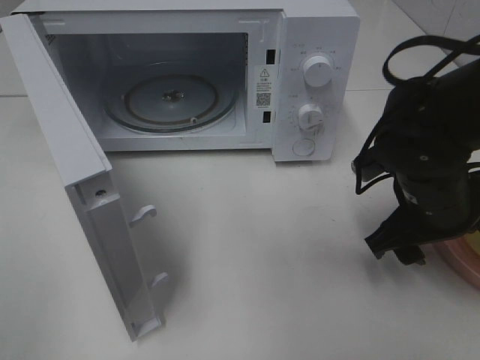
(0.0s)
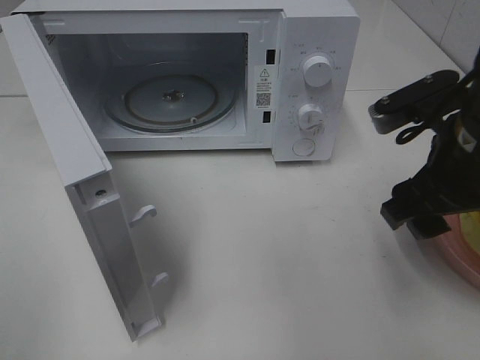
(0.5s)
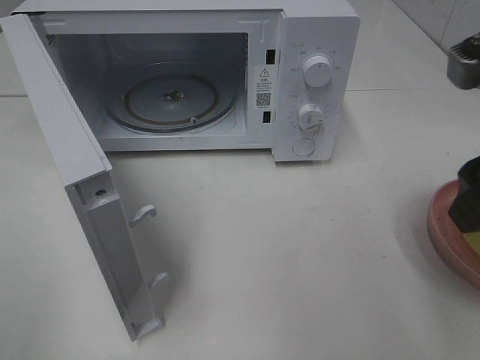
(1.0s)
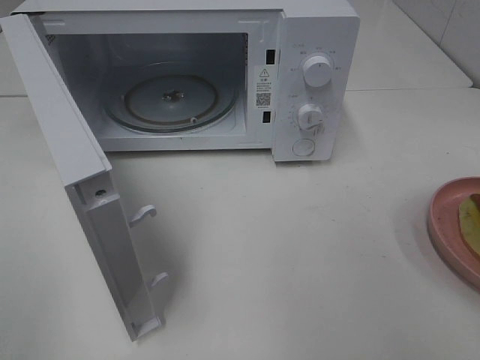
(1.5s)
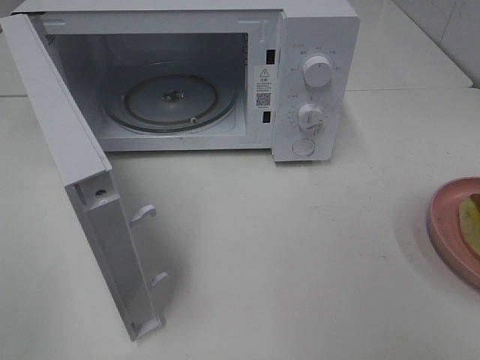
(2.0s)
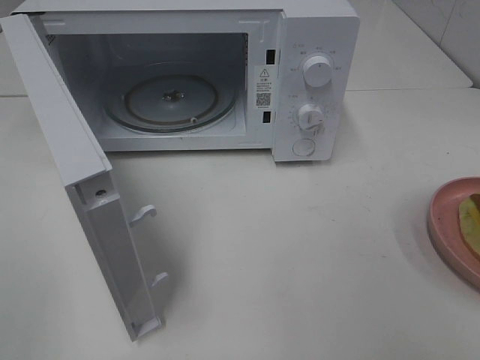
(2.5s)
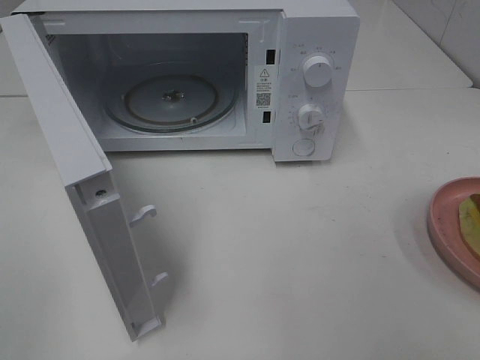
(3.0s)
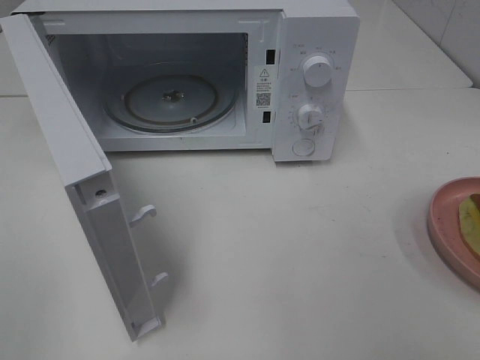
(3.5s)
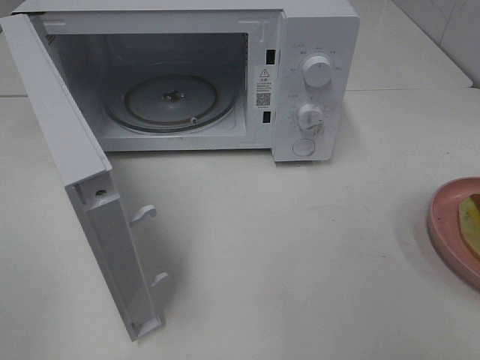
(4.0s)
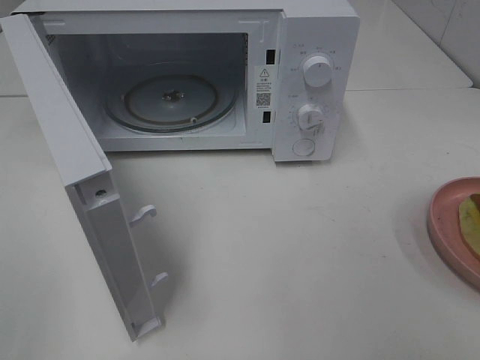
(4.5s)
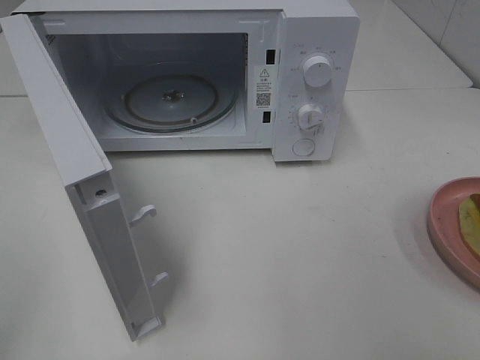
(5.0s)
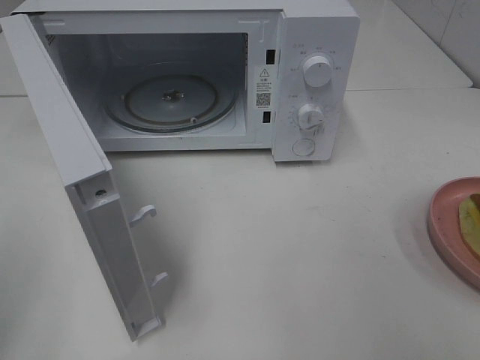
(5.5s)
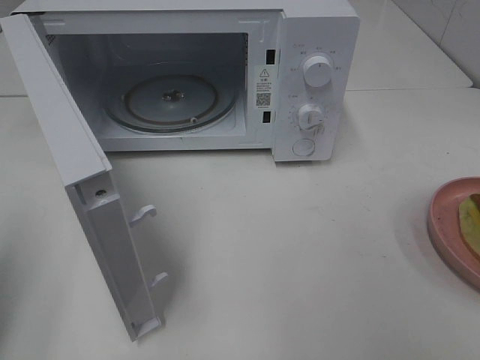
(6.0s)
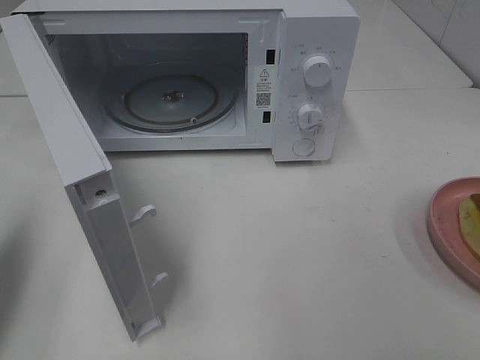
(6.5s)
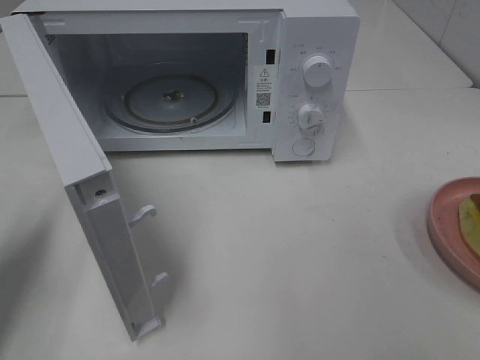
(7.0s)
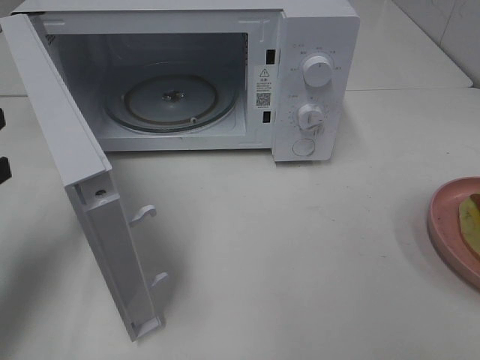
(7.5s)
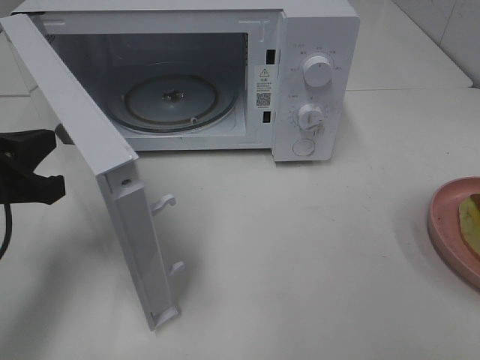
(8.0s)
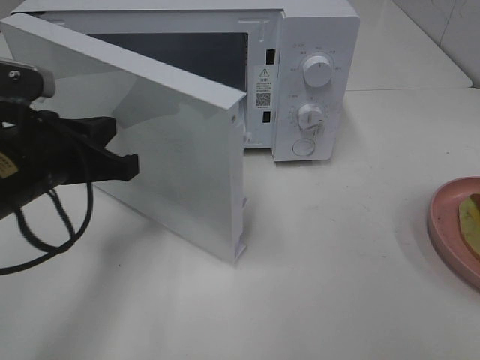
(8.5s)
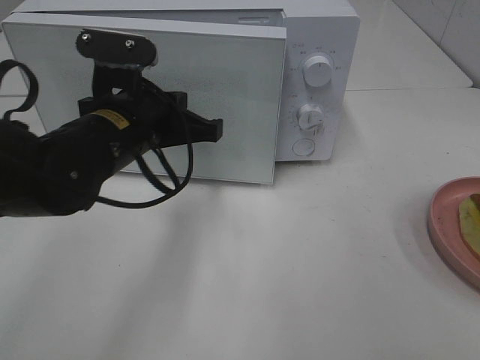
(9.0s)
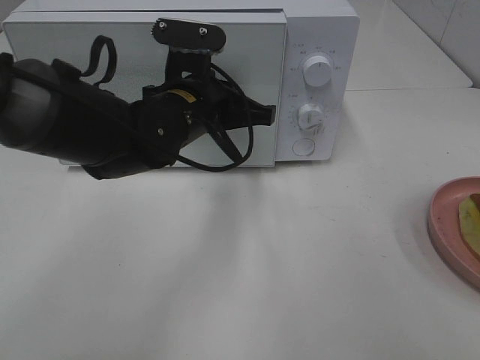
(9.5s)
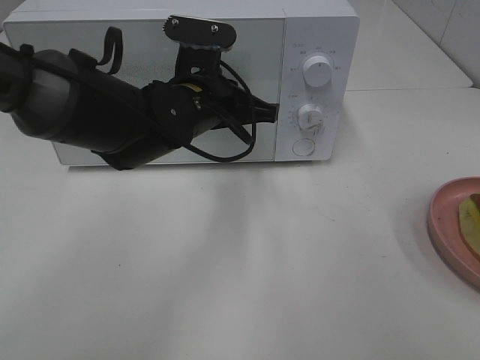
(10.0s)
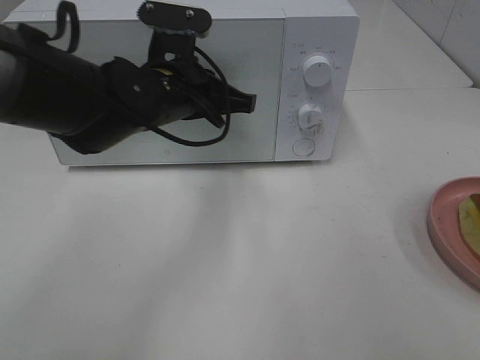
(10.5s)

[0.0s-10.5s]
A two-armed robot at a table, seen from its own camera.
Task of the whole recording: Heat Sandwich.
0.0s to 2.0s: The right gripper goes some 30 cm backward, upward and to the right.
4.0s to 6.5s: The left gripper travels forward by roughly 20 cm, and closes its fingers.
6.5s to 8.5s: The left gripper heads to the right, forward and downward, covering approximately 15 cm.
8.5s to 10.5s: The left gripper heads to the right and forward, covering some 15 cm.

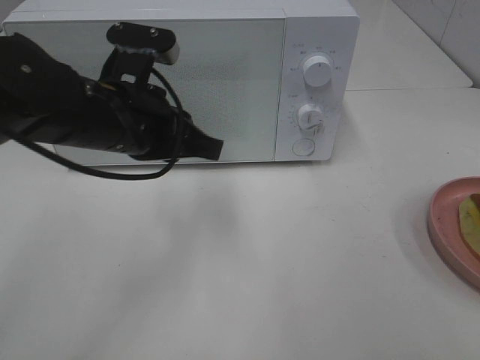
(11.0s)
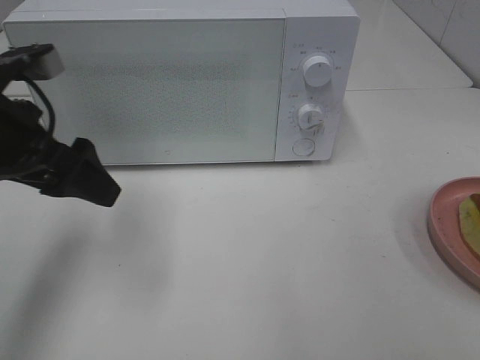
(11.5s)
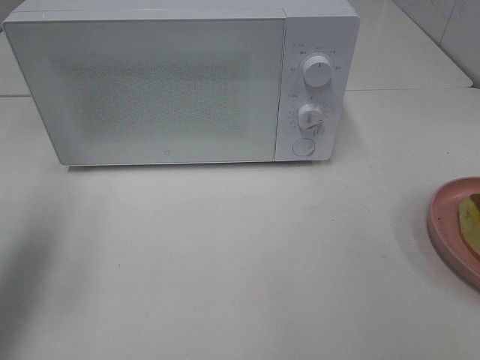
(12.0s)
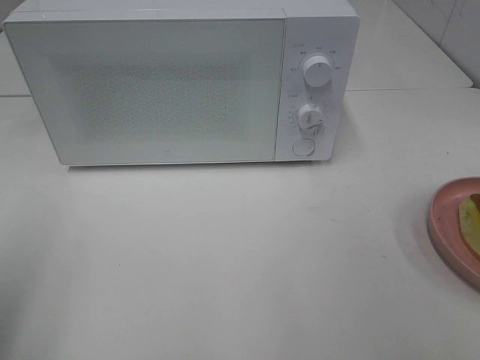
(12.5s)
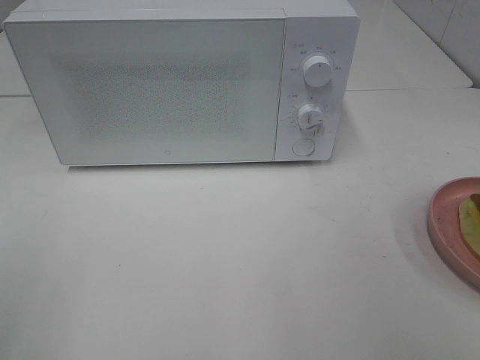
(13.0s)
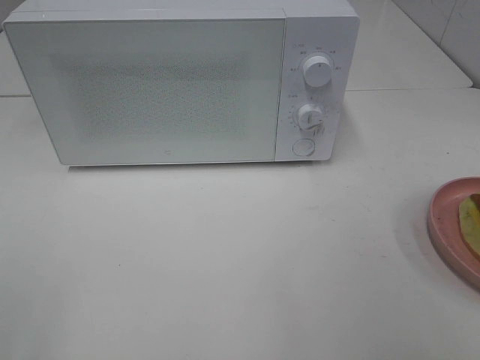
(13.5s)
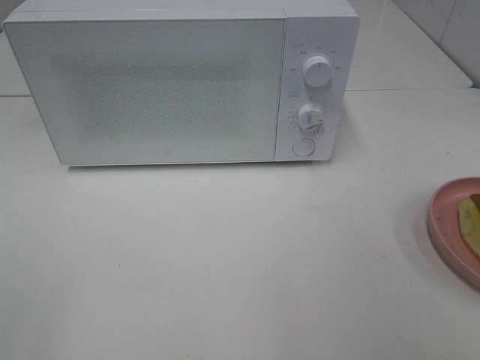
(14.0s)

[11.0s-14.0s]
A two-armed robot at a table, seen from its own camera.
Task of the whole recording: Heat Sandwich.
11.0s to 12.5s: The left gripper moves to the left and backward, approximately 25 cm, and opens.

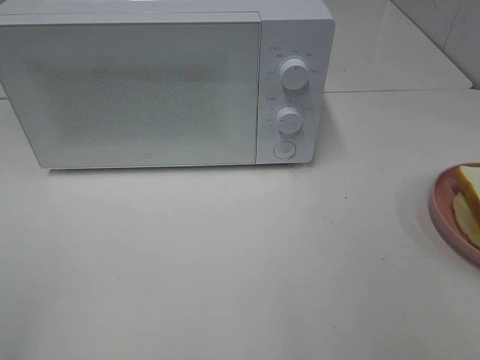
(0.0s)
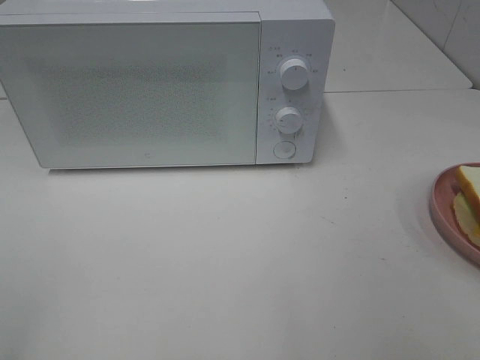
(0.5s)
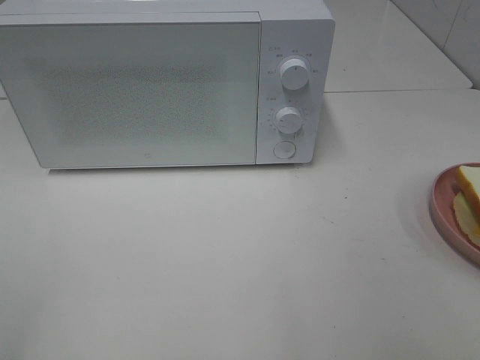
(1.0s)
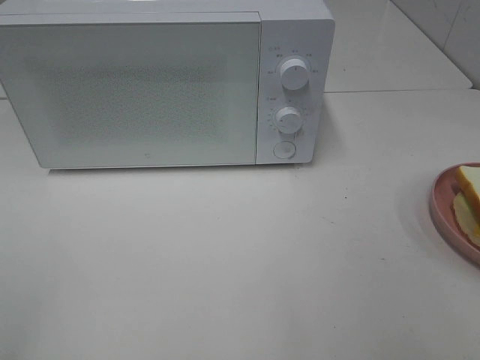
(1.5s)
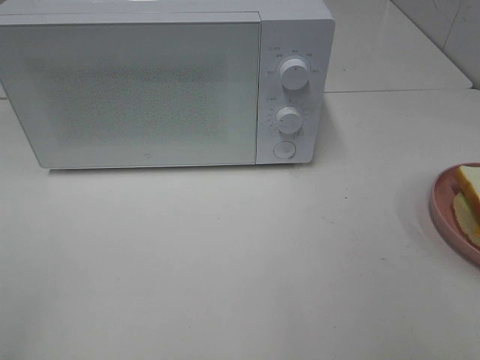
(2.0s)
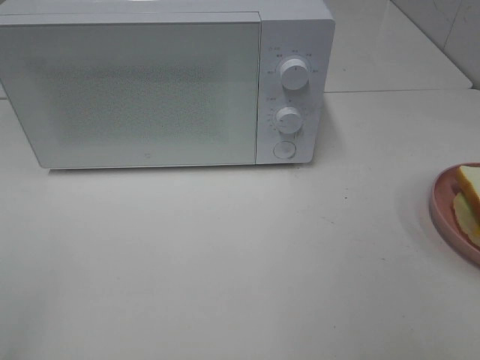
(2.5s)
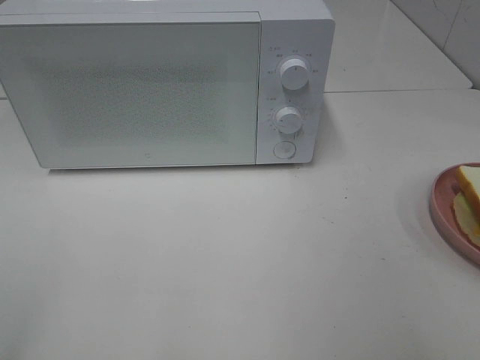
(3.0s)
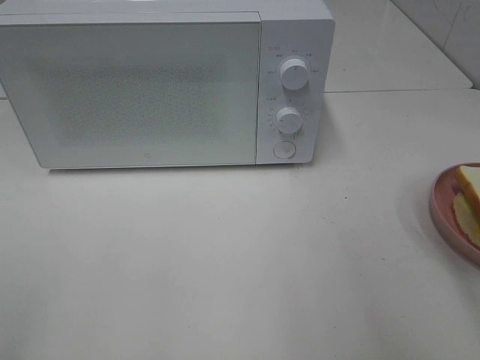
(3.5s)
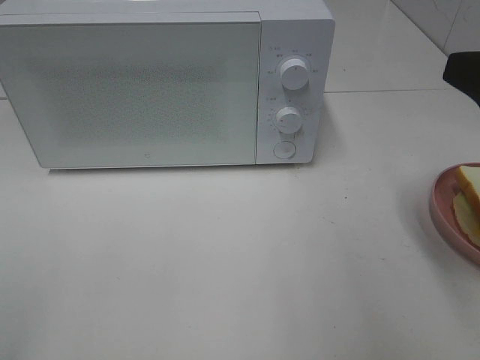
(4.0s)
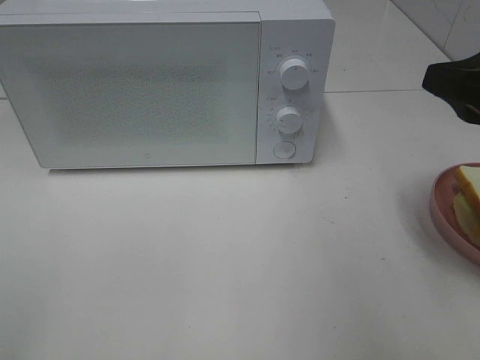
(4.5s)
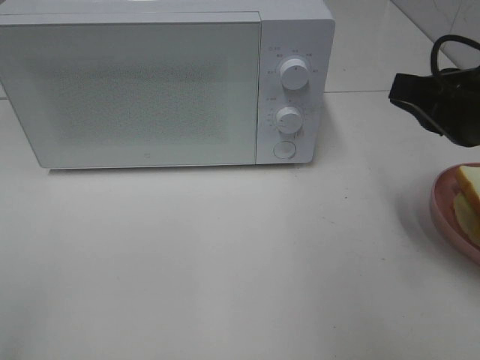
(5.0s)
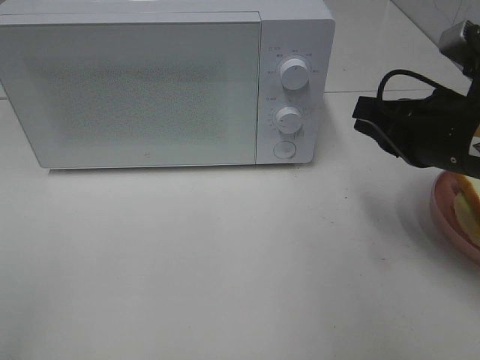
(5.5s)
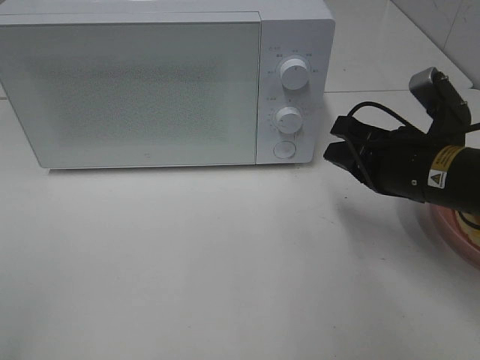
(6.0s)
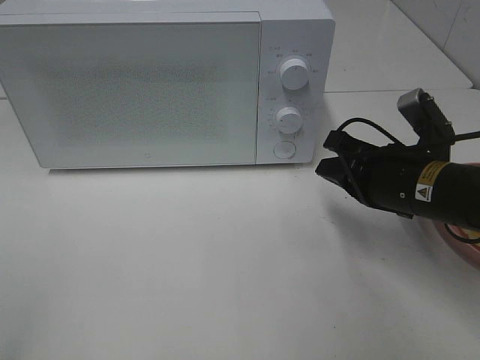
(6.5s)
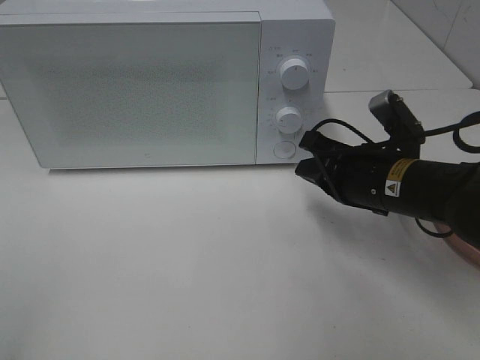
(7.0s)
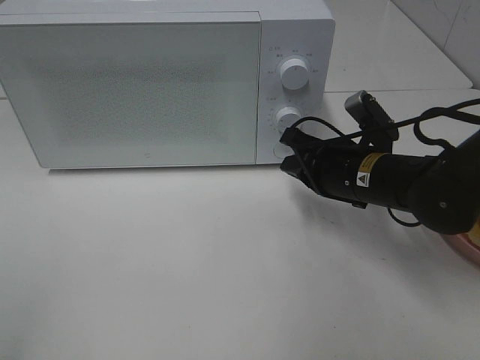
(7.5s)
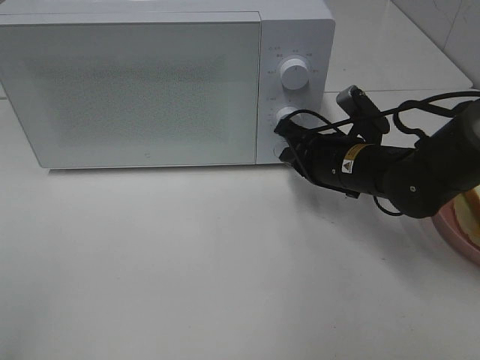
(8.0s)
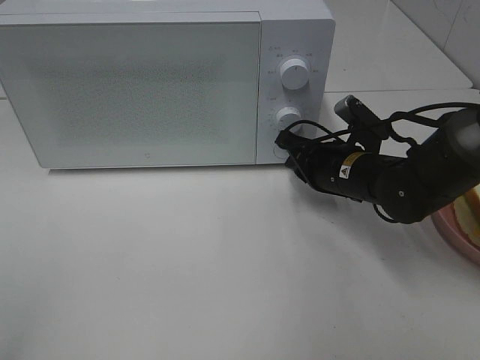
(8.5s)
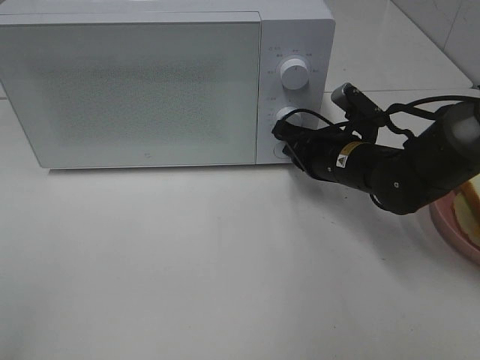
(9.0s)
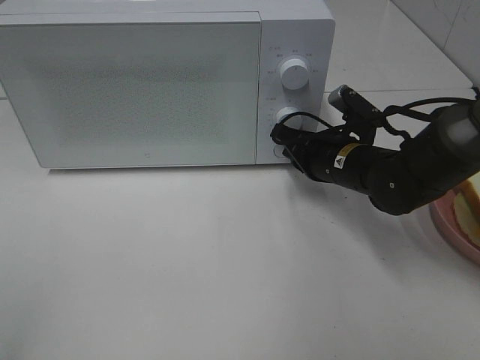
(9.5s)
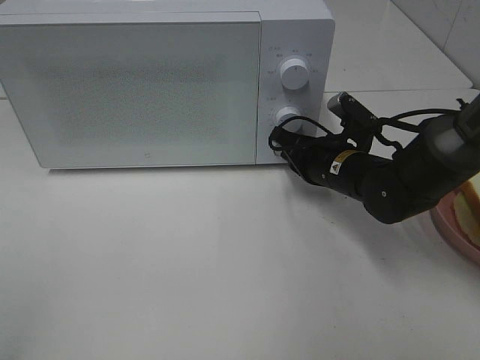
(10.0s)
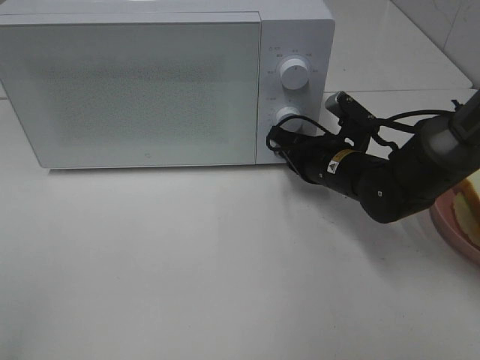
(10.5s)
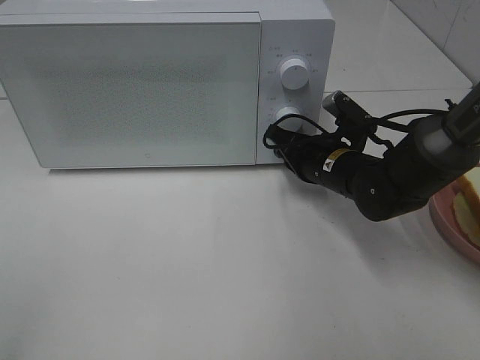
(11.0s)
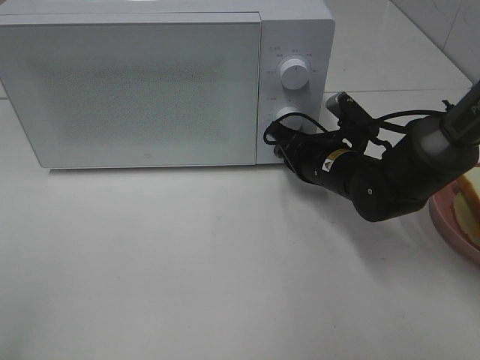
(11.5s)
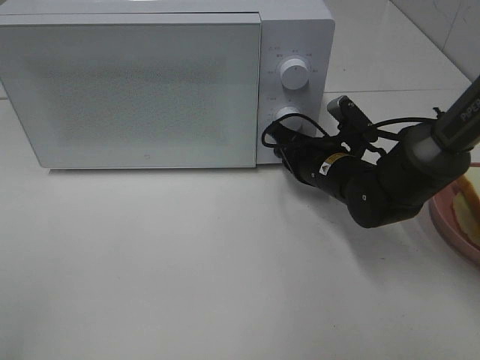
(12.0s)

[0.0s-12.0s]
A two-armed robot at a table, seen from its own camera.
Task of the whole recording: Heat Sandwich.
0.0s to 2.0s: Neither gripper changes place.
2.0s to 4.0s: The right gripper shifts about 15 cm forward.
4.0s to 6.0s: The right gripper shifts some 15 cm downward and forward, and closes.
6.0s to 8.0s: The right gripper goes roughly 10 cm forward and downward.
8.0s to 12.0s: The grippers make only small movements.
